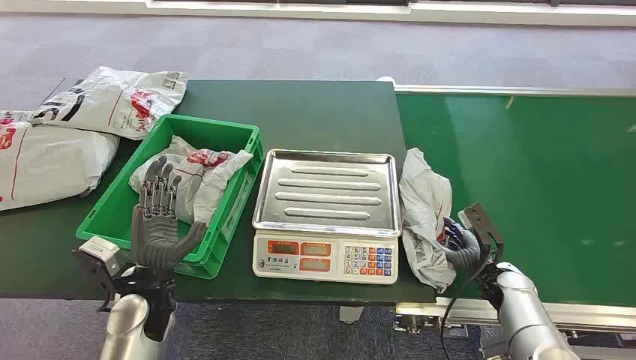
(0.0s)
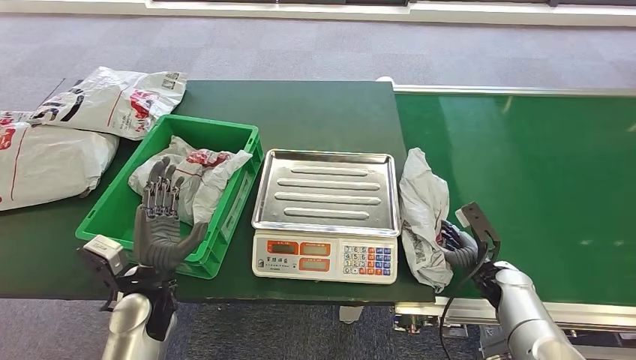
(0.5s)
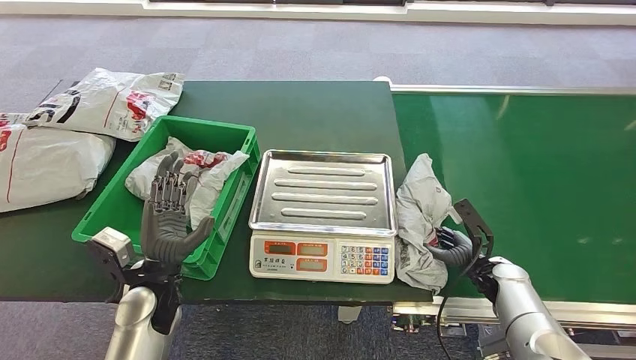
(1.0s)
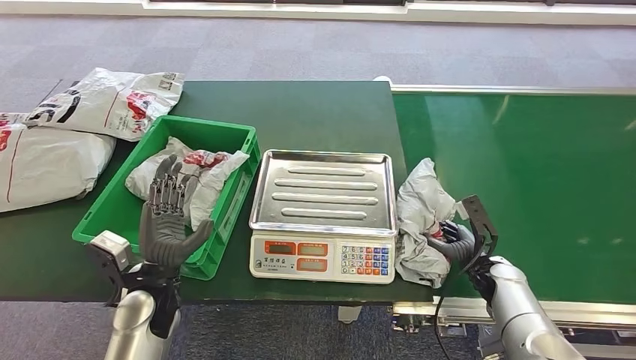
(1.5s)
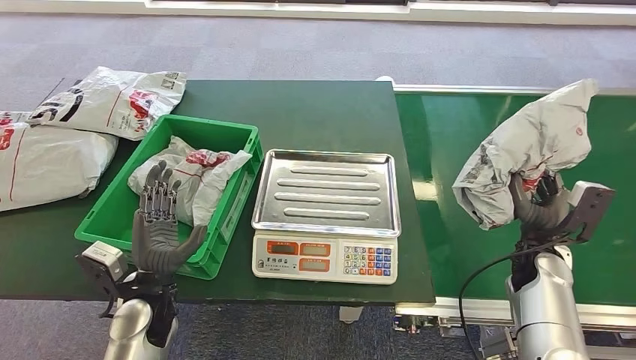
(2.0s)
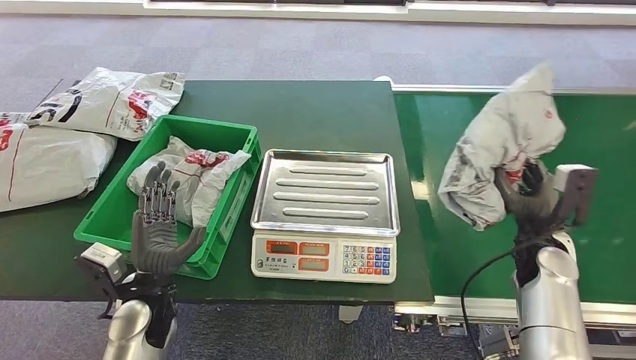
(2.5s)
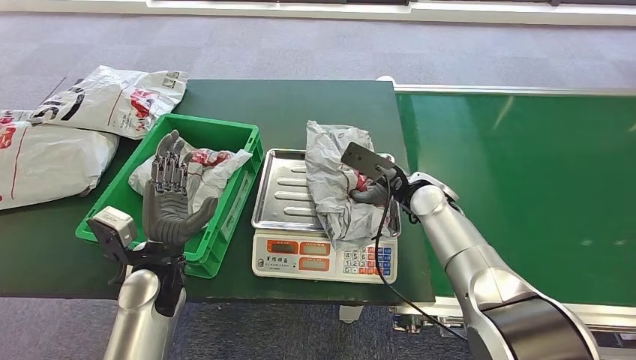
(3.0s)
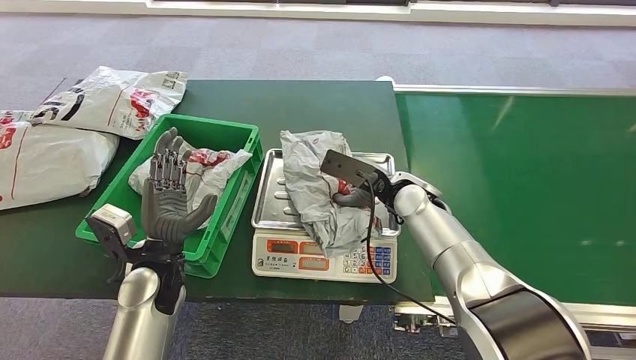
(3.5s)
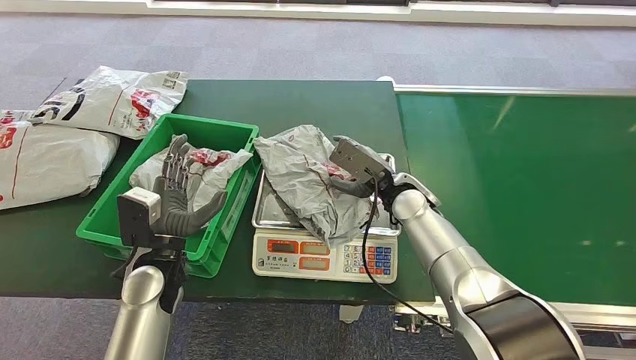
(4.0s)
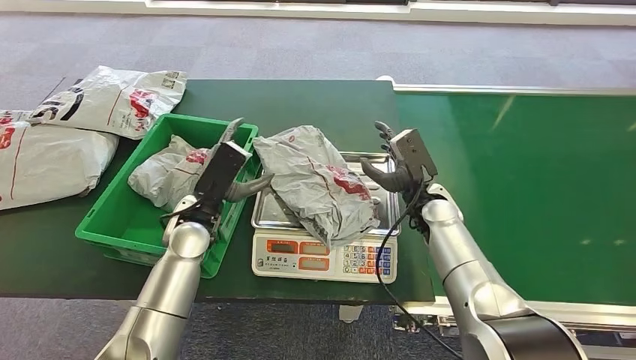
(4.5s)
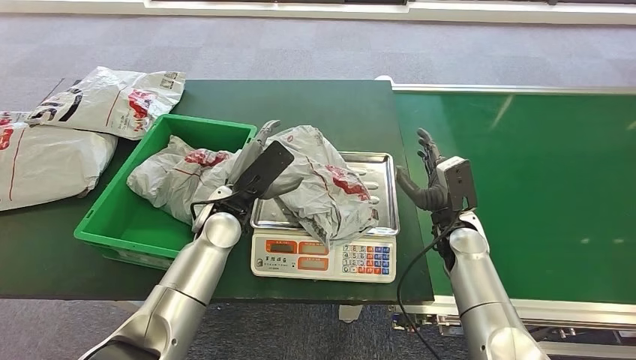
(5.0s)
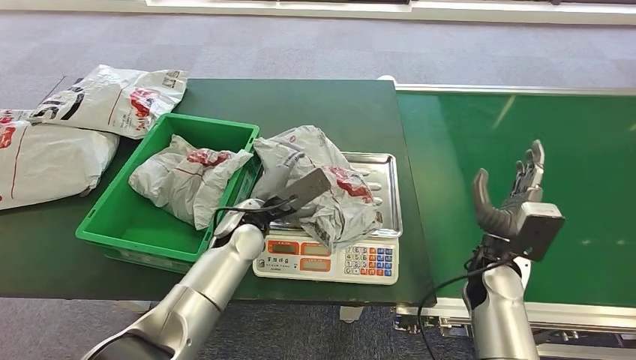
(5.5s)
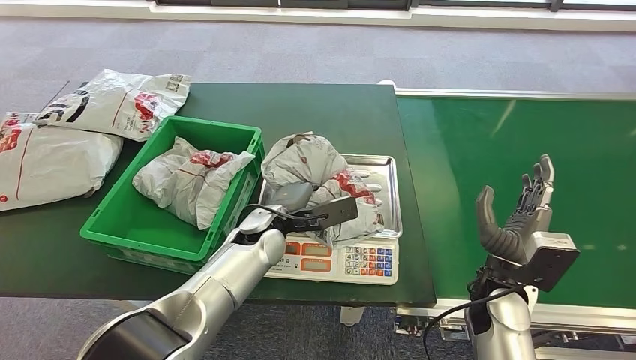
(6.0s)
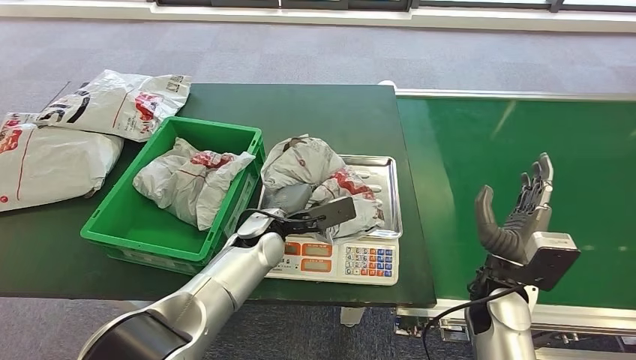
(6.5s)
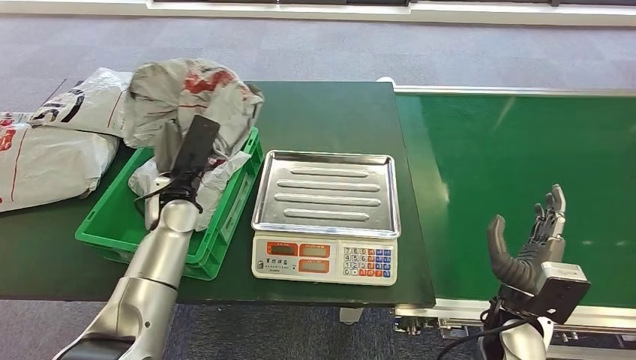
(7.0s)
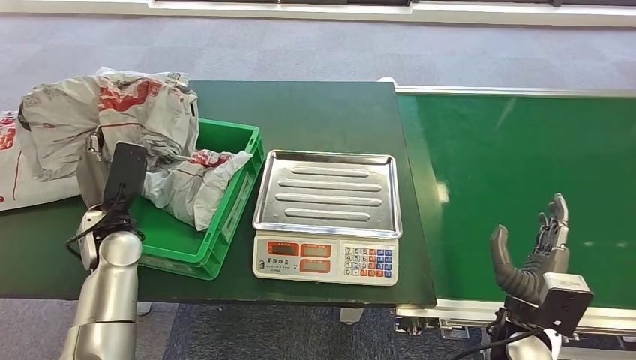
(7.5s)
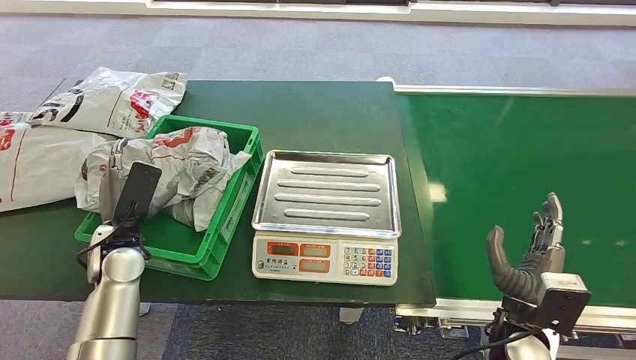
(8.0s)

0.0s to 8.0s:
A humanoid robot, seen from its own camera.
Task of the whole recording: Weigh the package on the weighing device and place it in the left basket.
Step, 0.0s to 2.0s: Pick up the package from the conveyor belt.
Step, 2.5s to 4.0s: Place the package onto the inbound machine.
Step, 6.0s to 6.5s: Pick up the package from the inbound machine.
Step, 7.0s to 8.0s: Place the package into the parcel locker.

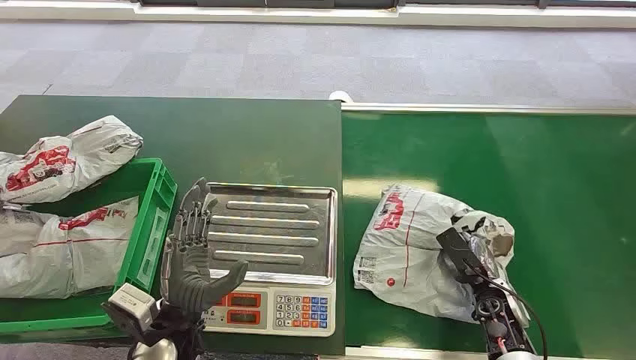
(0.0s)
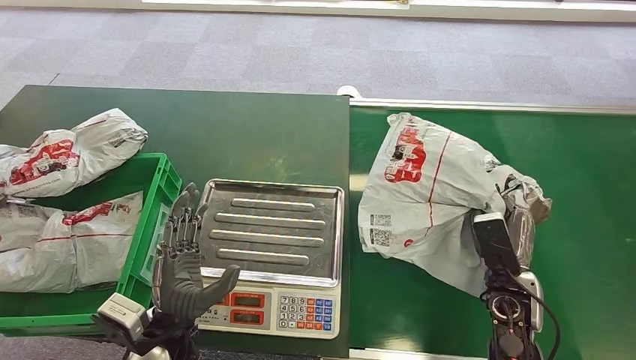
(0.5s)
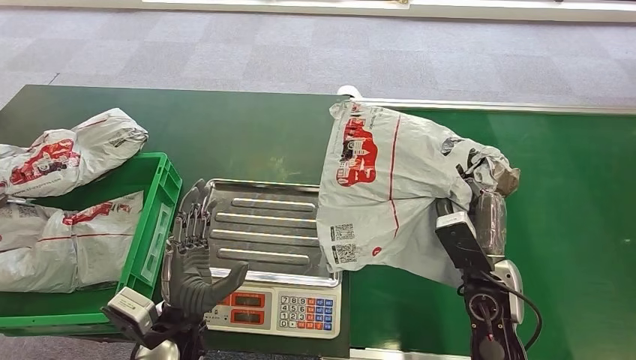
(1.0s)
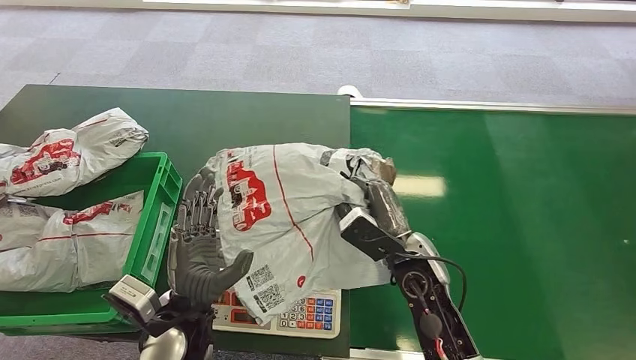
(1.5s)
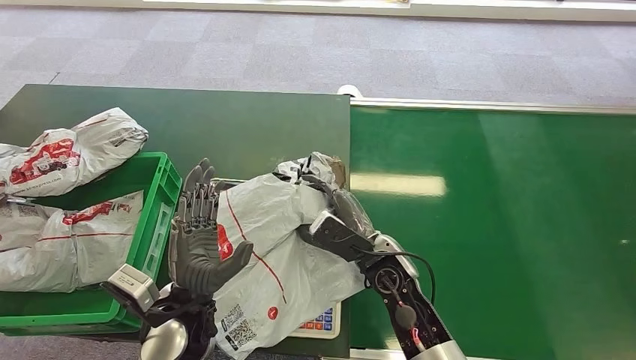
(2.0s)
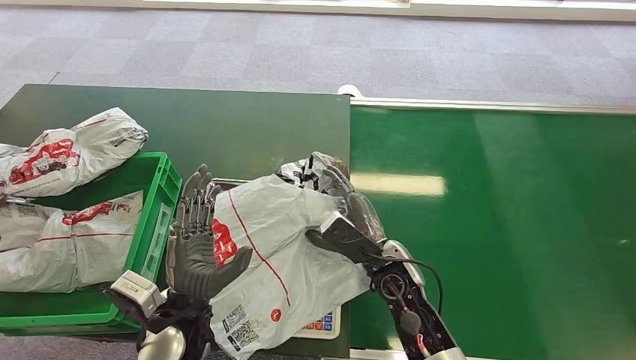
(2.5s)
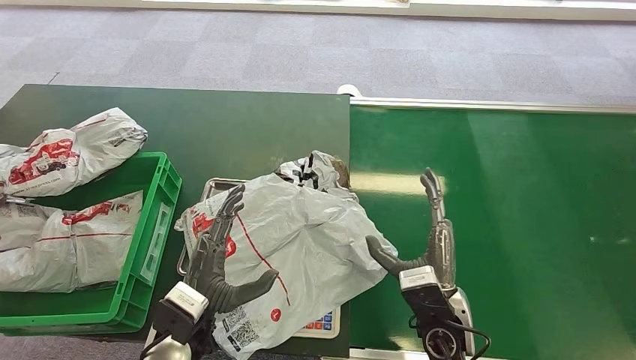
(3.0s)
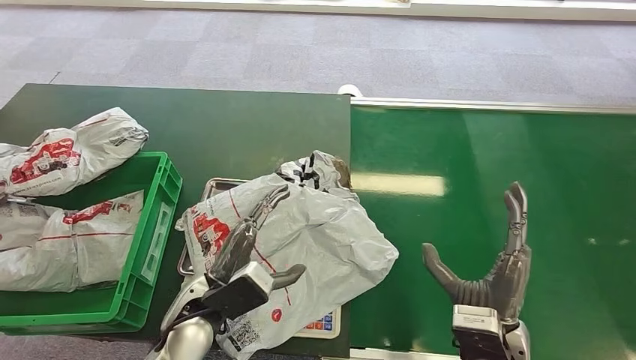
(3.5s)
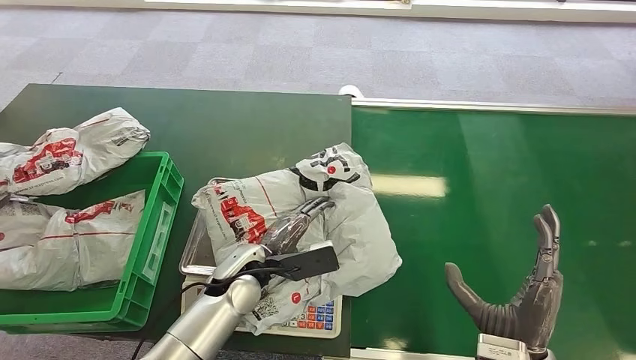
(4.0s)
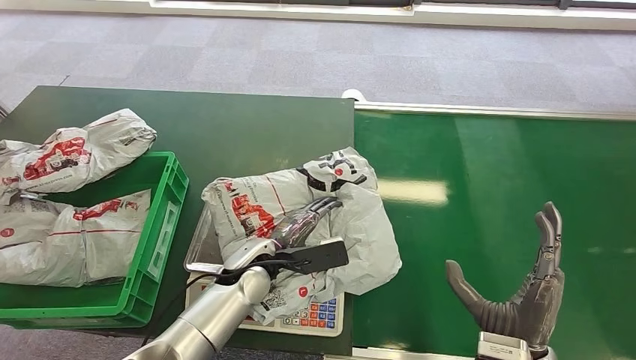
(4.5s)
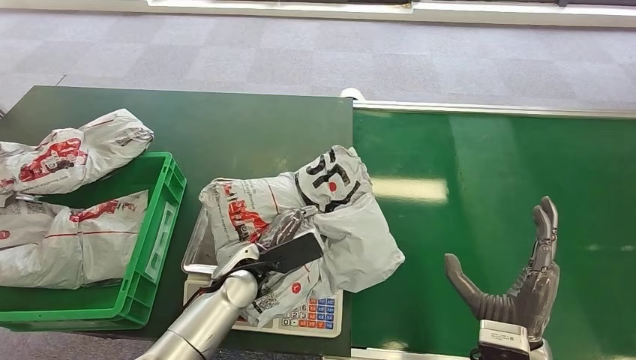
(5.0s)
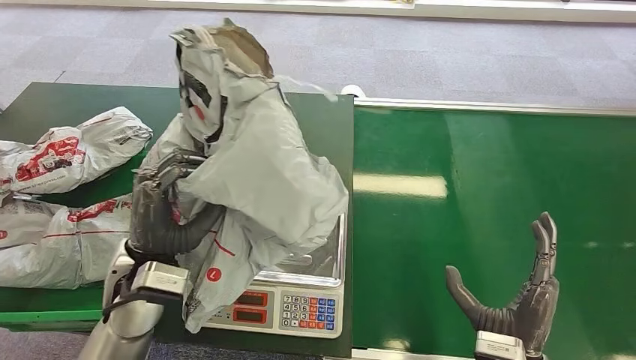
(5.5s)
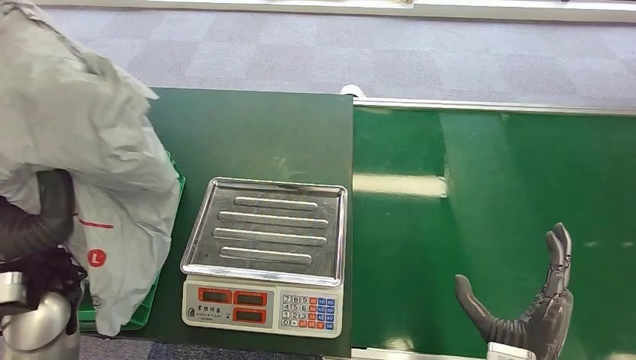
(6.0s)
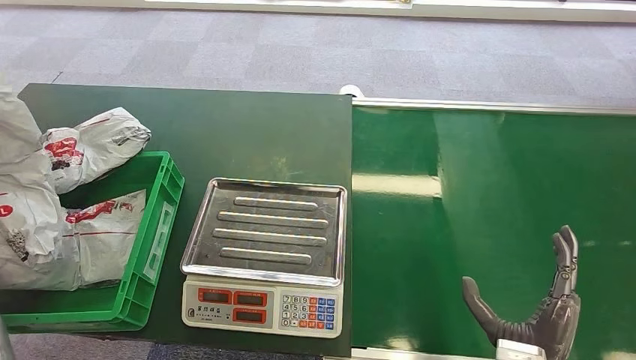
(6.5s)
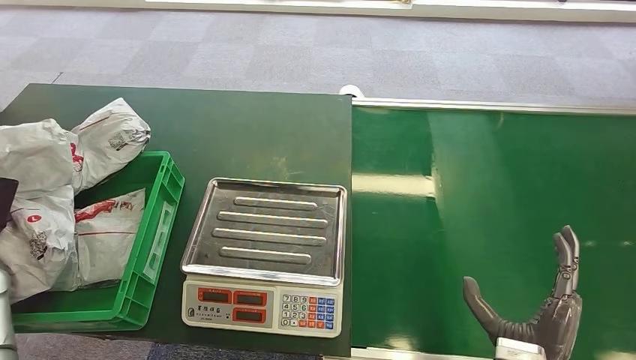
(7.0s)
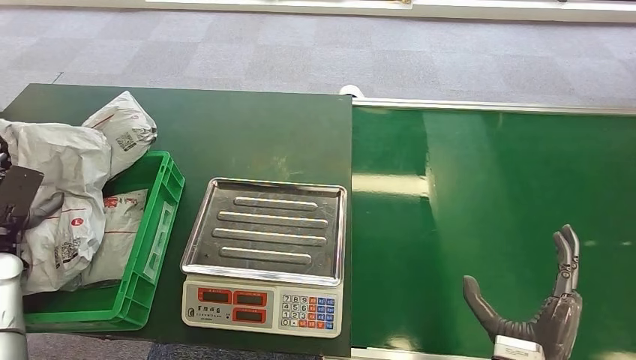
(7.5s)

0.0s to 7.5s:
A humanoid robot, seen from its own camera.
Task of the whole recording: Weigh the package on the weighing device and place it in the left basket.
Step, 0.0s to 0.5s: Pick up the package from the conveyor belt.
Step, 1.5s to 2.5s: Place the package onto the inbound machine.
Step, 5.0s to 5.5s: Pick up the package from the inbound machine.
Step, 6.5s to 7.5s: Place the package into the parcel locker.
2.0s to 4.0s: The right hand is displaced backward and to the right by about 20 cm. Meanwhile the left hand goes some 10 cm forward.
